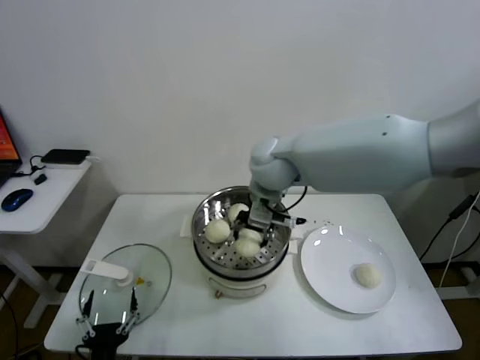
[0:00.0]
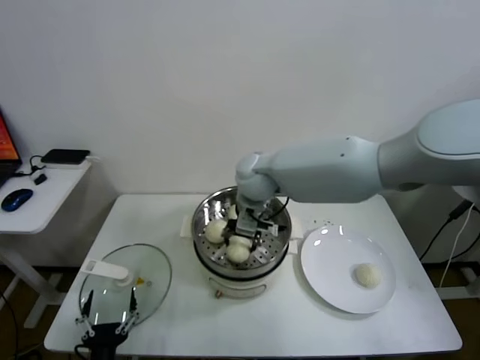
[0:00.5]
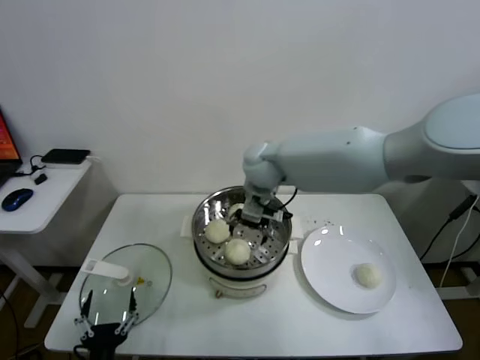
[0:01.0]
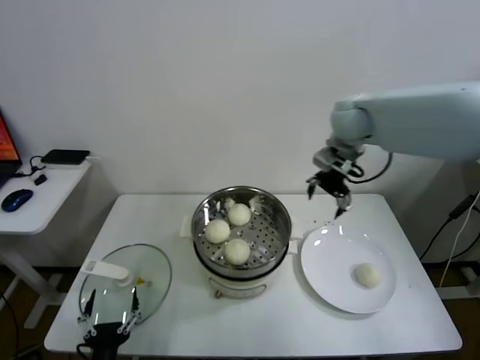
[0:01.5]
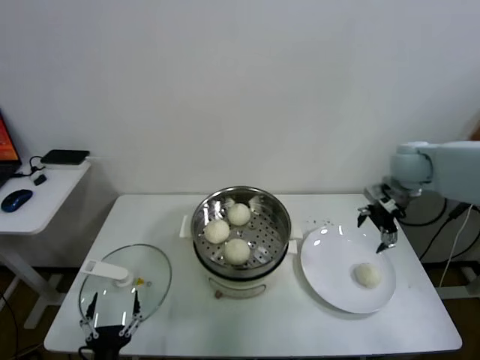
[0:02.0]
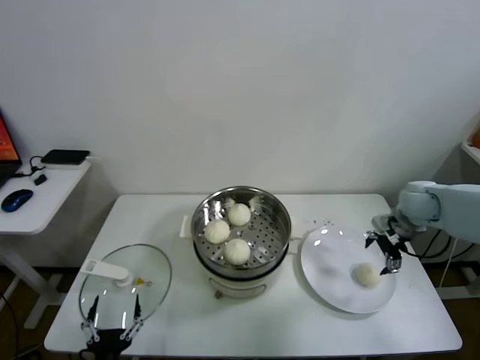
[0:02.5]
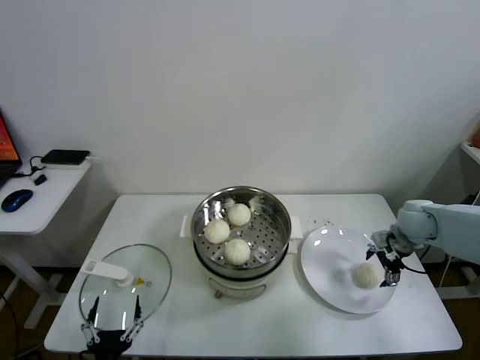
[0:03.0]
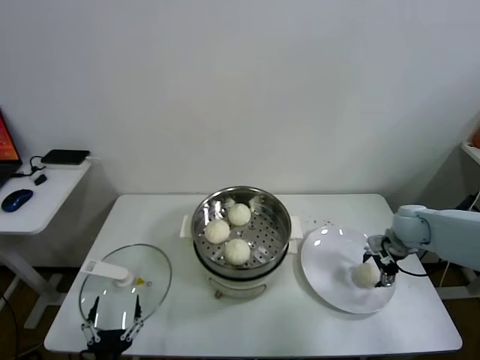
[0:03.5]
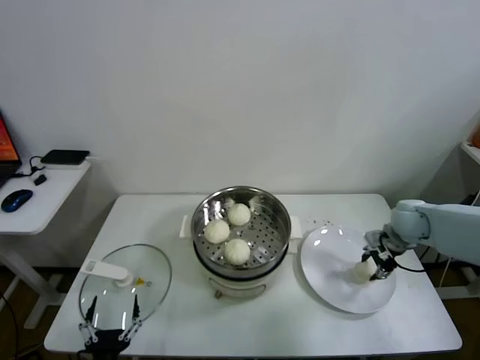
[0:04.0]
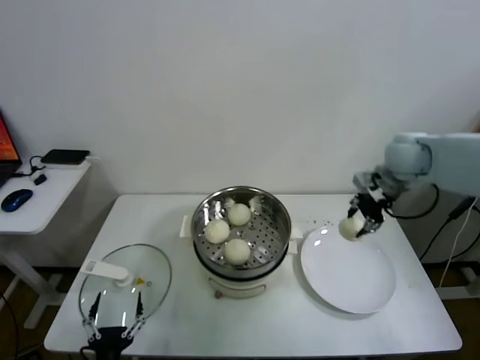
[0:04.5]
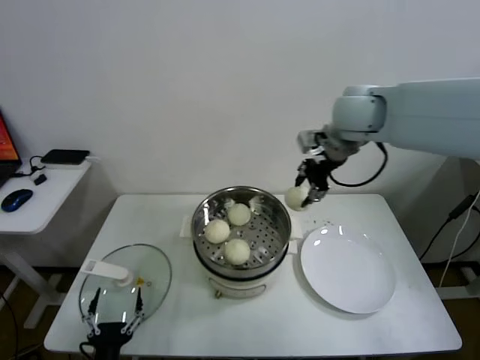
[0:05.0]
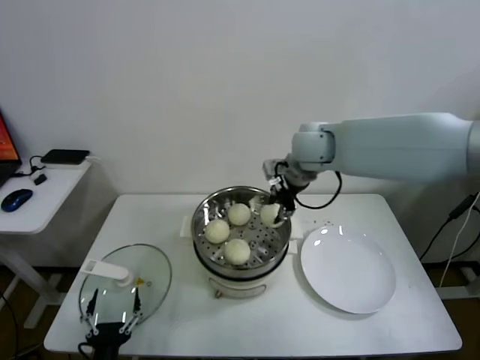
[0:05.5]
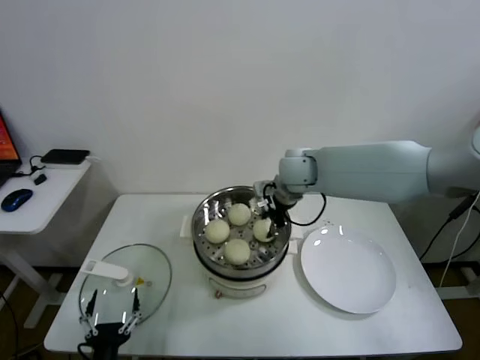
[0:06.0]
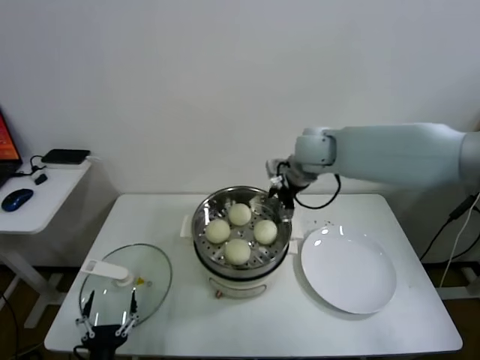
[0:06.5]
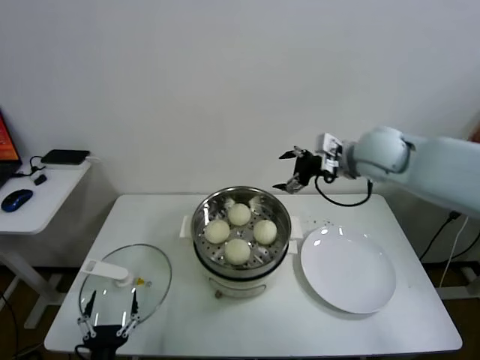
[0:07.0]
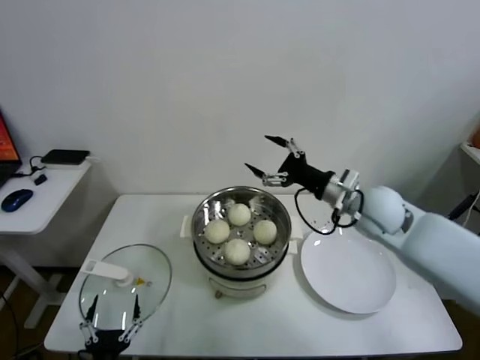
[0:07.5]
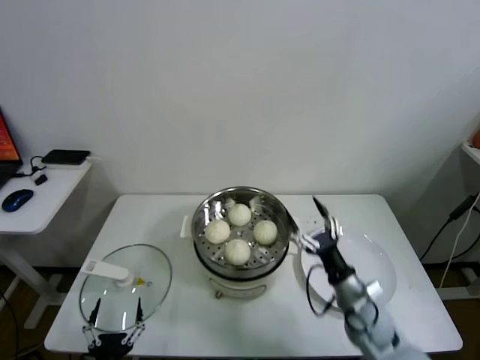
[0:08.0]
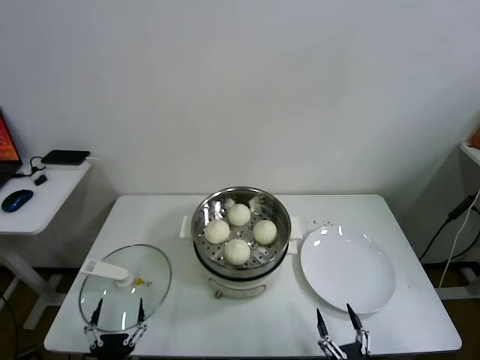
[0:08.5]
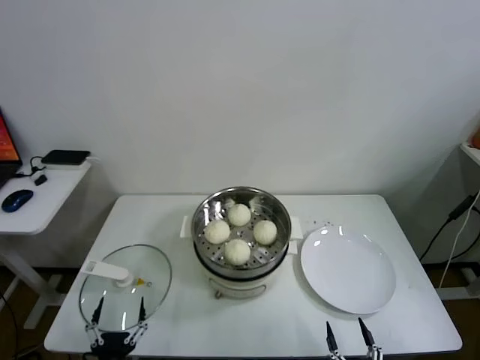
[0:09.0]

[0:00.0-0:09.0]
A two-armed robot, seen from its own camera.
Task of the whole recording: take steamed baozi put them in steamer.
Step, 0:01.0 to 0:03.5: Grasp the baozi in the plate with right gripper.
Step, 0:04.0 to 0:06.0: Place the baozi on the steamer with right gripper.
0:00.0 to 0:02.0: The right gripper is displaced to the right by some 30 cm, and opens its fingers.
0:02.0 to 0:04.5: The right gripper goes downward and returns, approximately 15 cm each way, and closes its fingers.
0:04.5 to 0:07.0: The right gripper goes about 10 cm to the left, and opens up.
0:07.0 to 0:09.0: The right gripper heads backward and downward, covering some 60 cm.

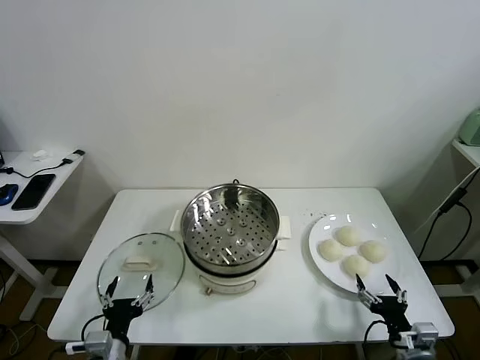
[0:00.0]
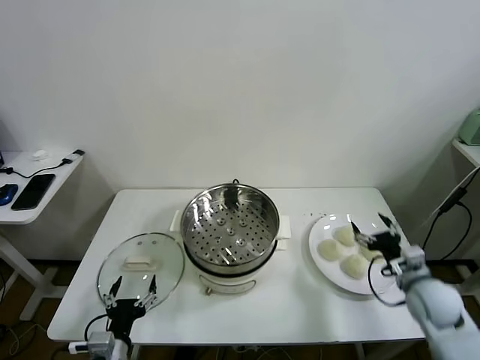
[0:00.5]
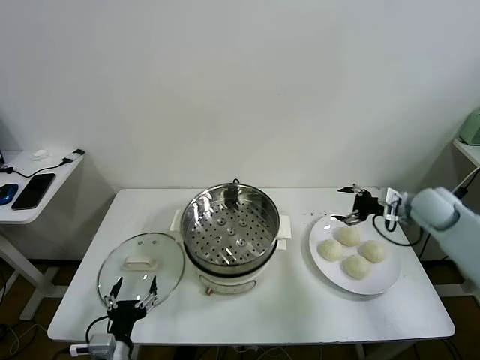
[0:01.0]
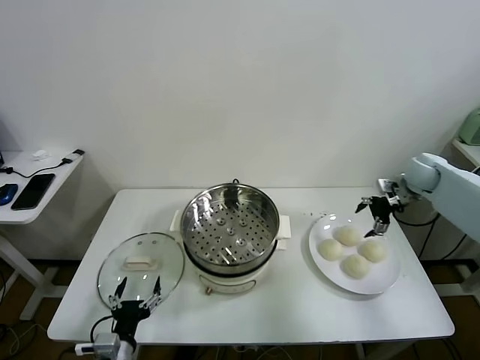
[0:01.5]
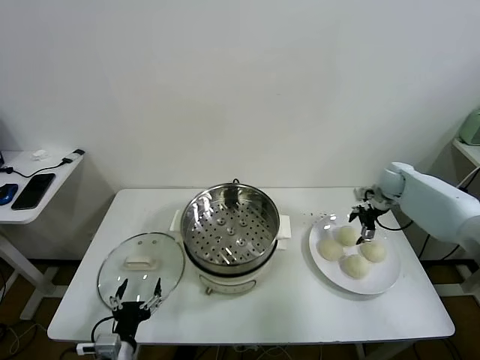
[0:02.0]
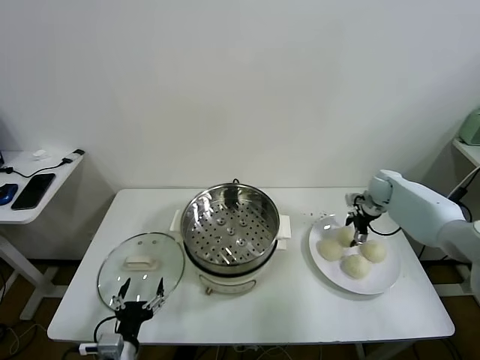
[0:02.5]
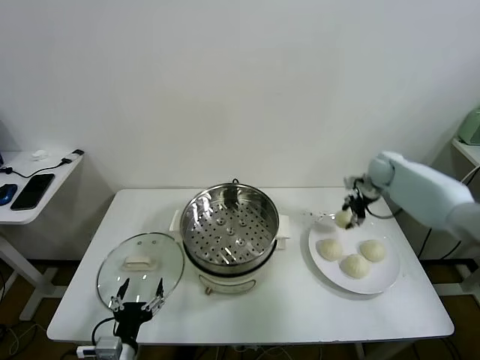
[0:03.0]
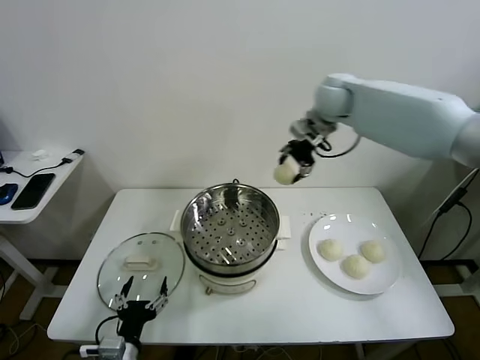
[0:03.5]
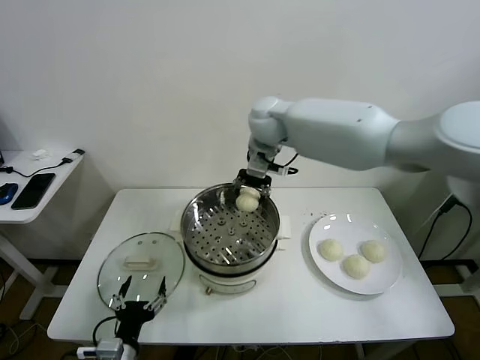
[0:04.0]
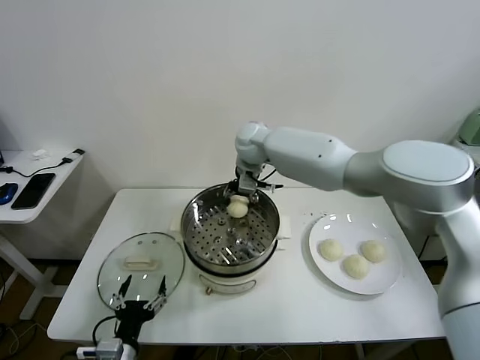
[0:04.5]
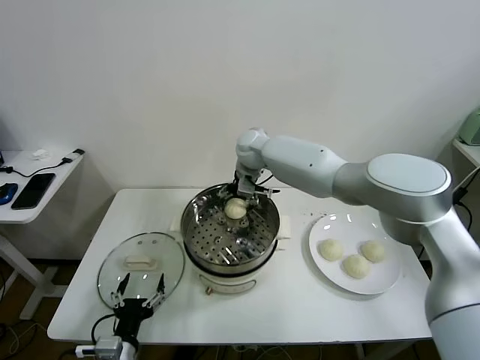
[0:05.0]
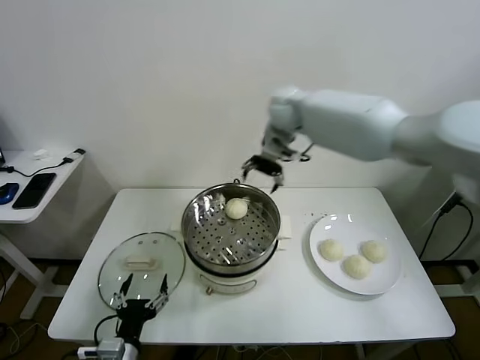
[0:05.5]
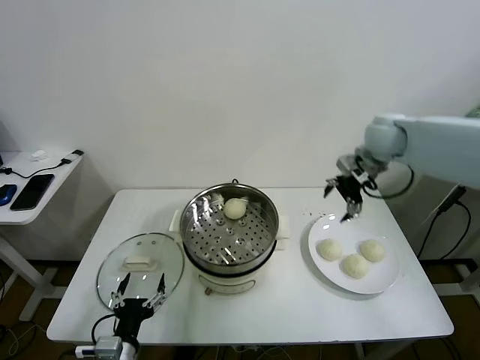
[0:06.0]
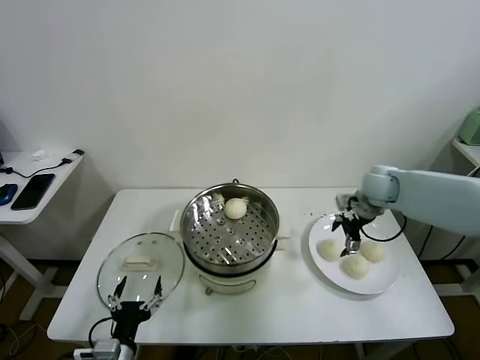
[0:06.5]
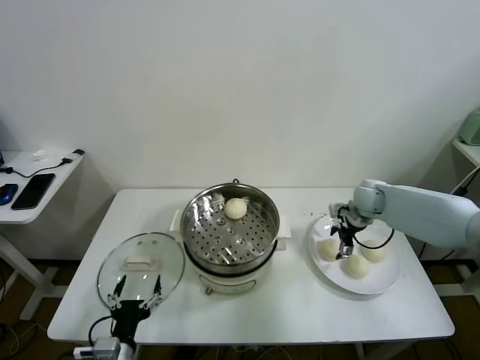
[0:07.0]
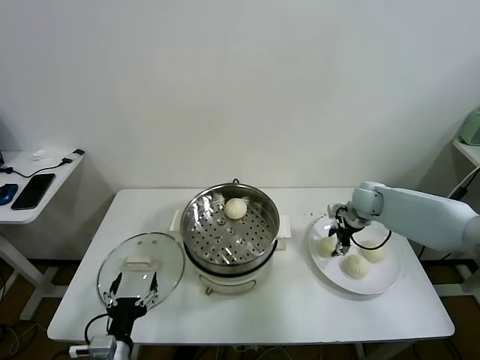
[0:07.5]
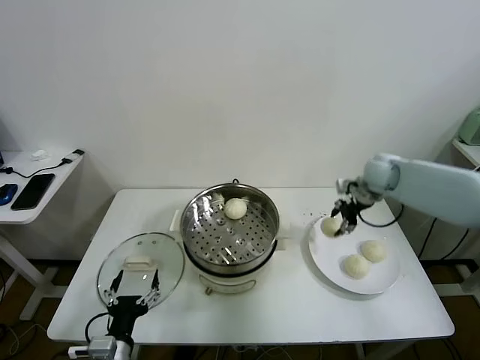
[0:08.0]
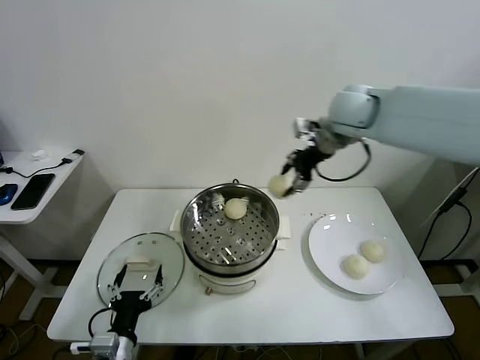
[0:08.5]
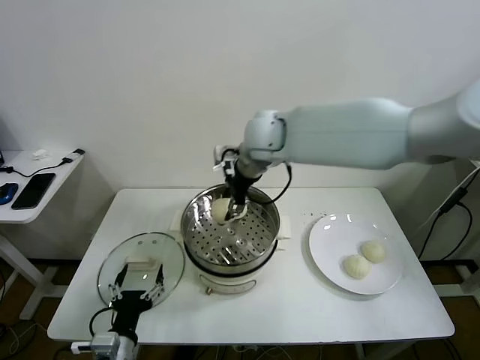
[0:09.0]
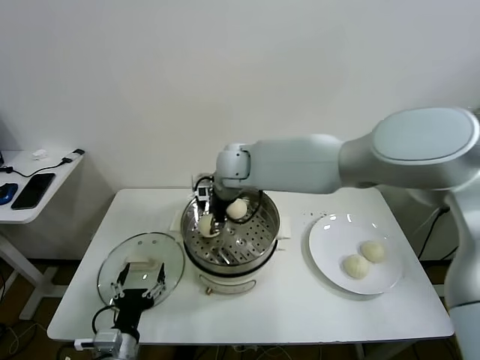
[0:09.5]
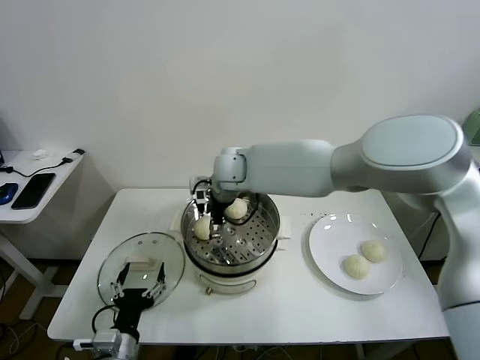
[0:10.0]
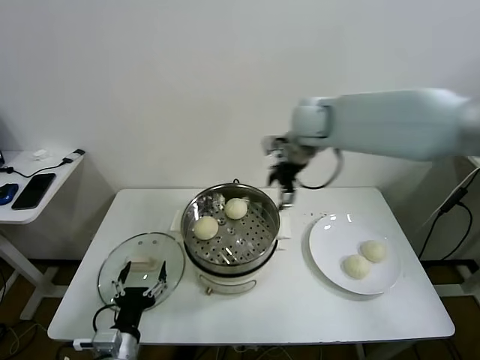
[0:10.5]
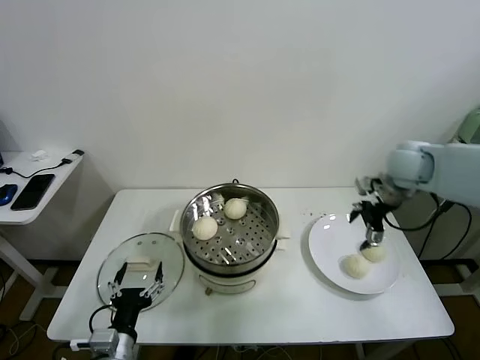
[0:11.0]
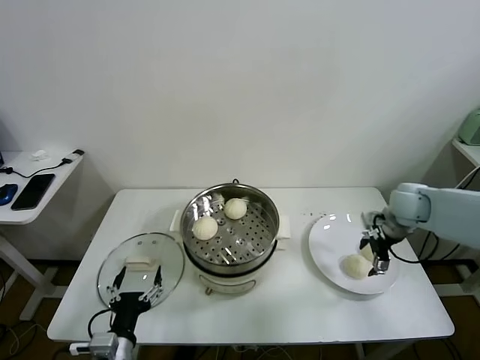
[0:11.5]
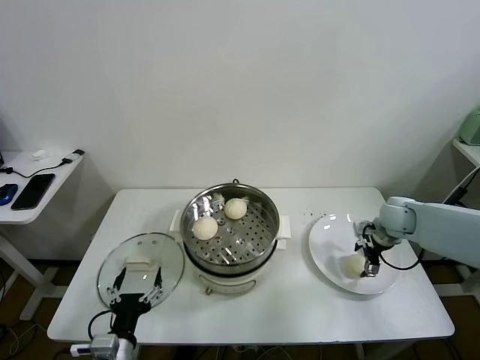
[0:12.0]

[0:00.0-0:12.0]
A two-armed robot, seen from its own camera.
Task of the whole recording: take steamed baozi put them in steamer.
Step, 0:00.0 to 0:02.5: Grasp the baozi in the plate with right gripper.
Step, 0:03.0 to 0:05.0: Place the baozi on the steamer with right gripper.
Step, 0:05.5 to 0:07.5: Grasp the baozi in the plate with right gripper.
Step, 0:08.0 to 0:10.0: Place the baozi on the steamer with right gripper.
0:02.0 to 0:04.0: The right gripper travels to the left and upward by approximately 40 cm, and closes up.
0:04.0 to 0:06.0: The right gripper shifts approximately 25 cm to the right, and opens up.
0:06.0 to 0:08.0: The right gripper is displaced downward by approximately 5 cm, and closes its fingers.
0:08.0 to 0:10.0: The right gripper heads to the left, covering some 35 cm, and opens its fingers.
0:10.0 to 0:12.0: The right gripper shifts roughly 40 cm to the right.

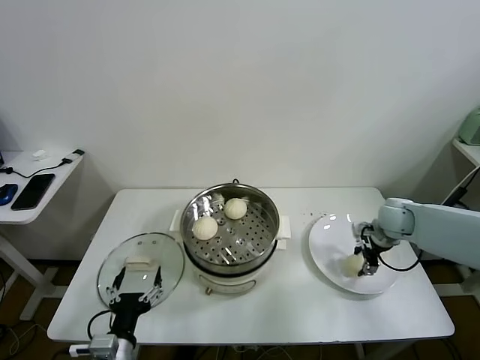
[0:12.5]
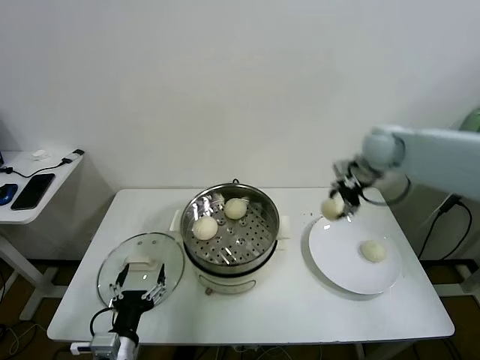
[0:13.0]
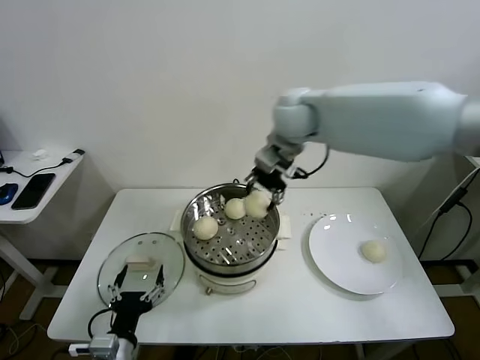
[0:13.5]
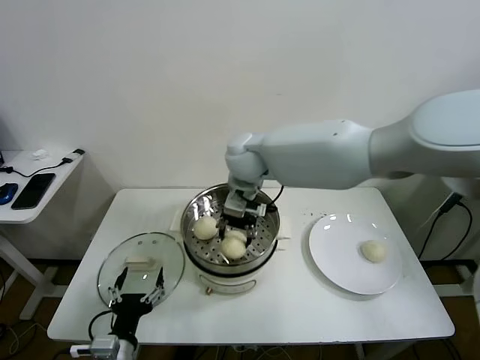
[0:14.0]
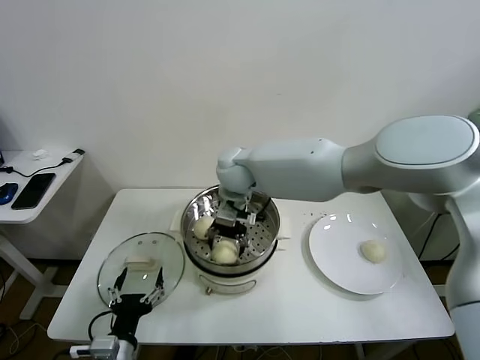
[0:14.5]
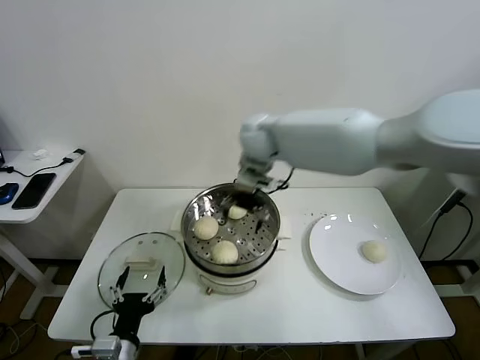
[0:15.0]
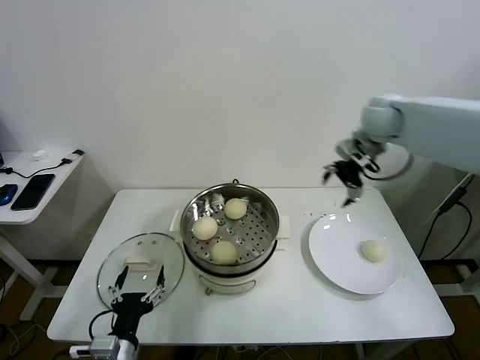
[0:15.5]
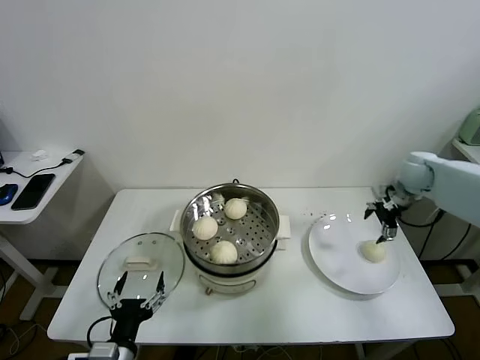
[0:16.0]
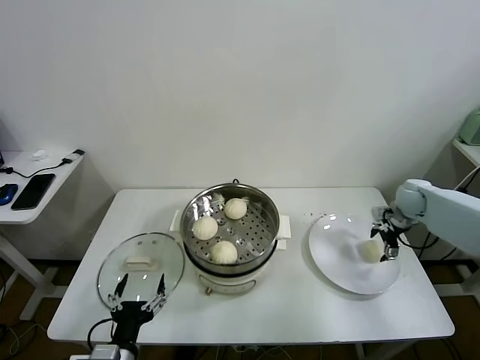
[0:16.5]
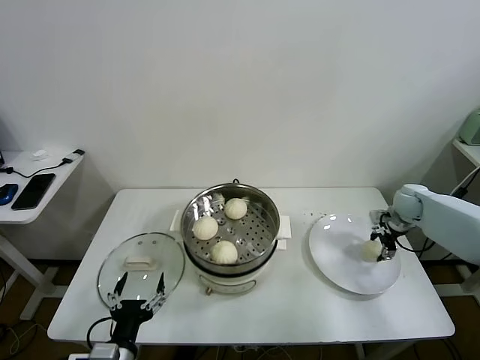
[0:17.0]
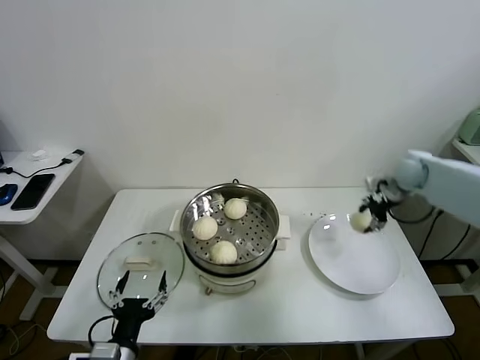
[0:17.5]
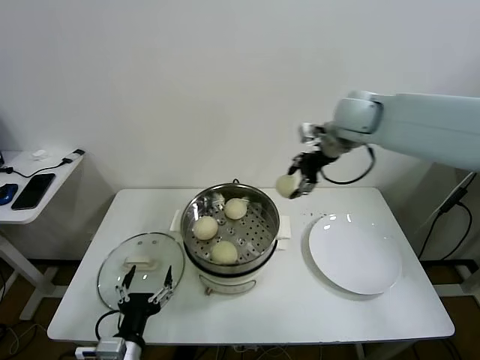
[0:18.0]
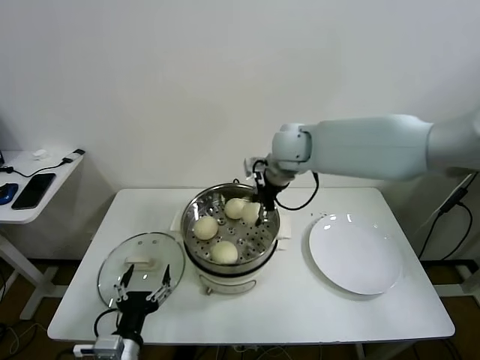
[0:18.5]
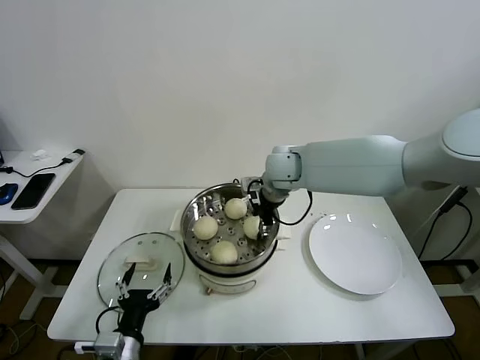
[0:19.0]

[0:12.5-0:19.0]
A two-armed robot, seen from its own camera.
Task of the whole recording: take steamed baozi put them in steamer.
Step, 0:13.0 to 0:14.5: Place the baozi on the steamer with right gripper.
Step, 0:15.0 to 0:17.0: Grasp the baozi in the plate with right gripper.
0:12.5 to 0:14.5: The right gripper goes roughly 40 cm to the left, and opens its fingers.
0:14.5 to 0:17.0: The right gripper moves to the right, about 50 cm, and closes.
0:17.0 to 0:19.0: The right gripper shifts some 35 cm to the left.
